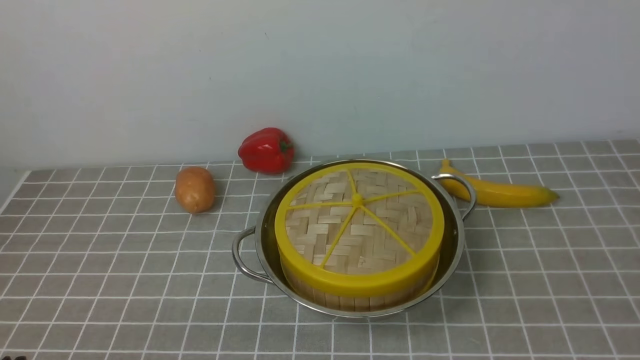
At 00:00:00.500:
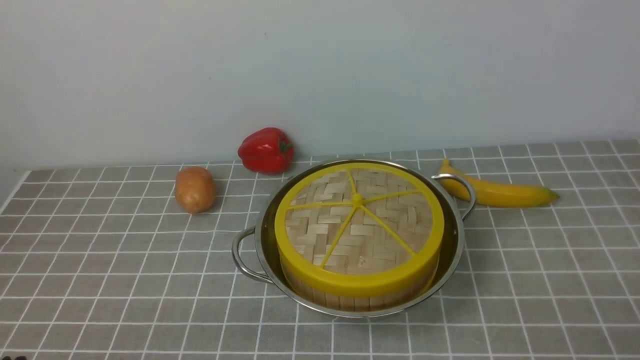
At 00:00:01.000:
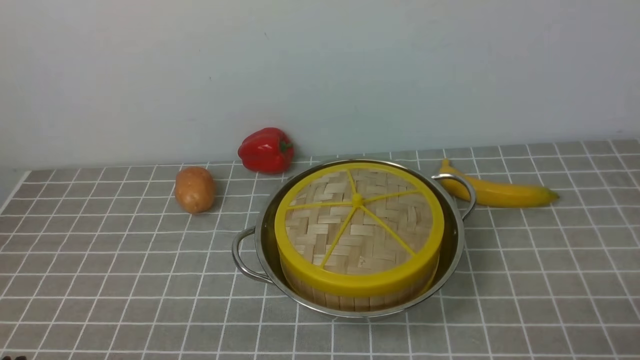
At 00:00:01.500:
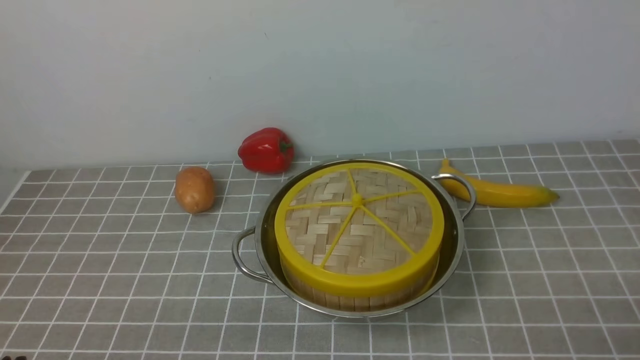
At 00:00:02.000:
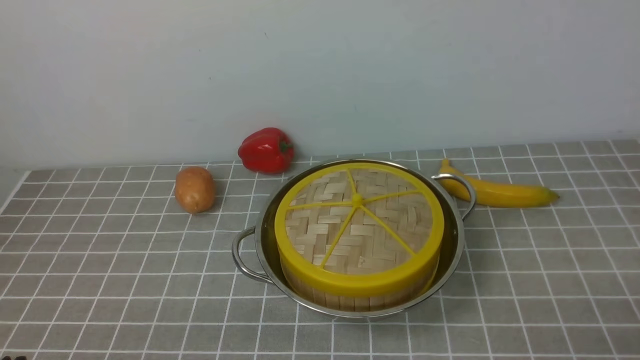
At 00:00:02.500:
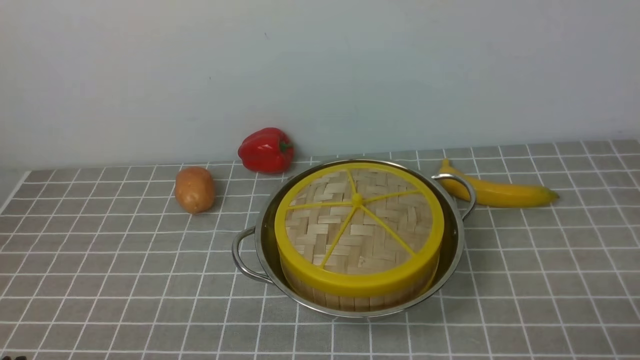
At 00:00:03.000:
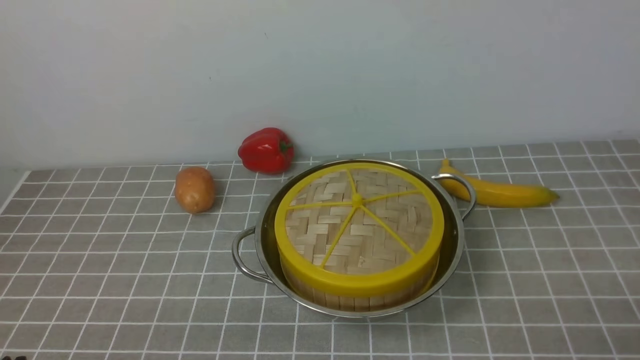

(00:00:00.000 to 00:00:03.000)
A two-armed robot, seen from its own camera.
Task of the whole recording: place the steamer in the pot on the grey tablecloth, and put the lid on the steamer.
00:00:01.500 - 00:00:03.000: The two grippers keep their place.

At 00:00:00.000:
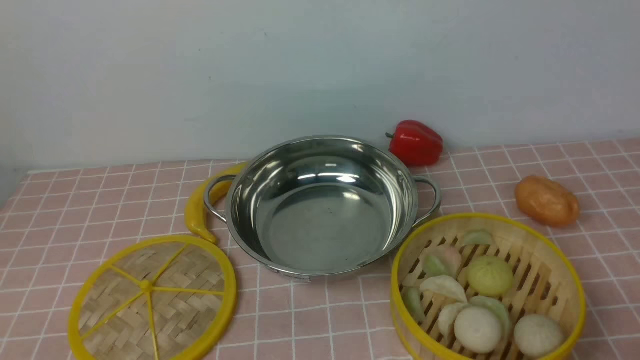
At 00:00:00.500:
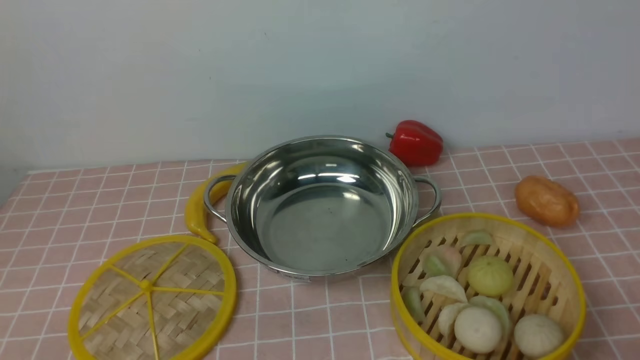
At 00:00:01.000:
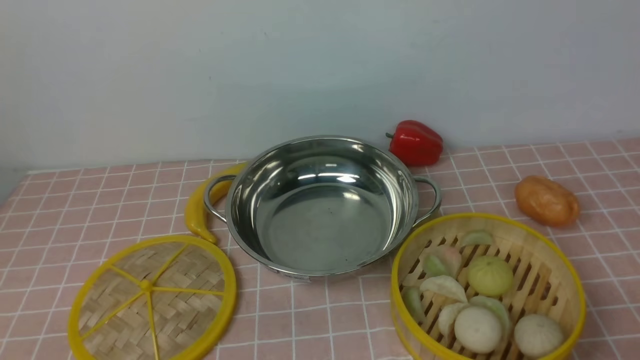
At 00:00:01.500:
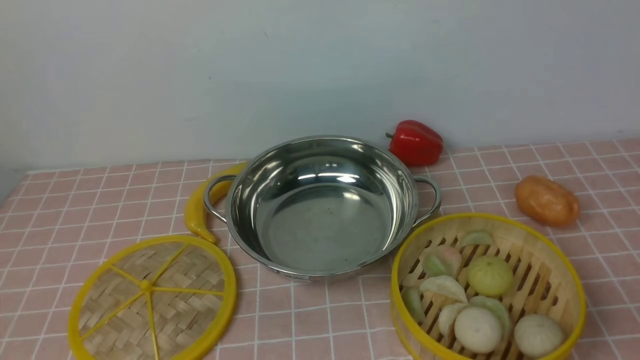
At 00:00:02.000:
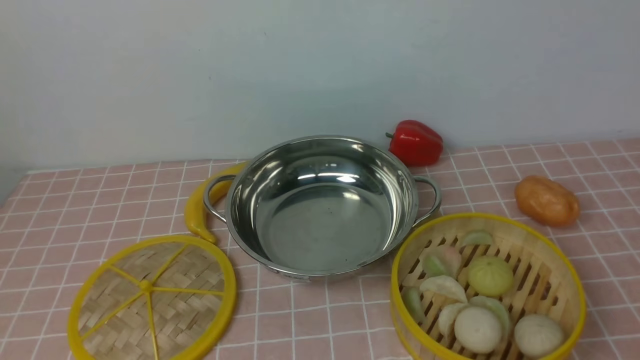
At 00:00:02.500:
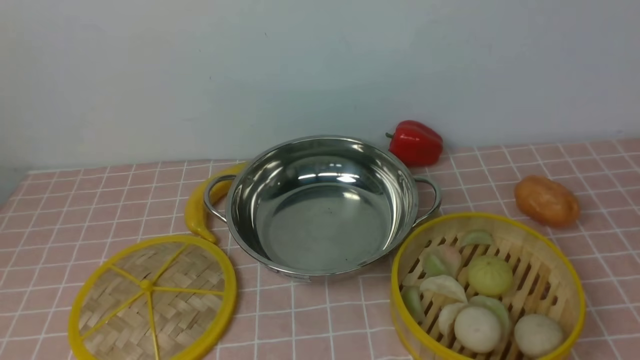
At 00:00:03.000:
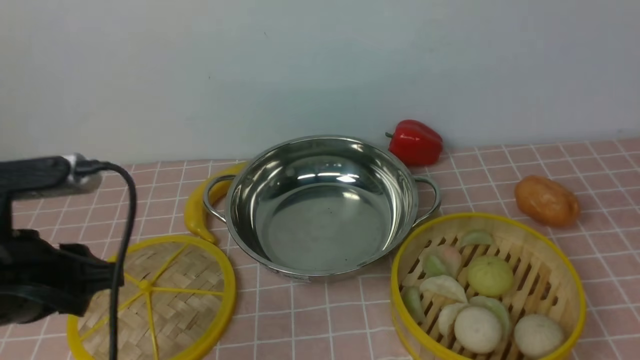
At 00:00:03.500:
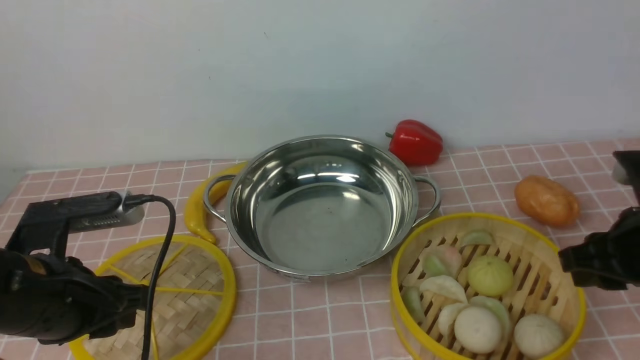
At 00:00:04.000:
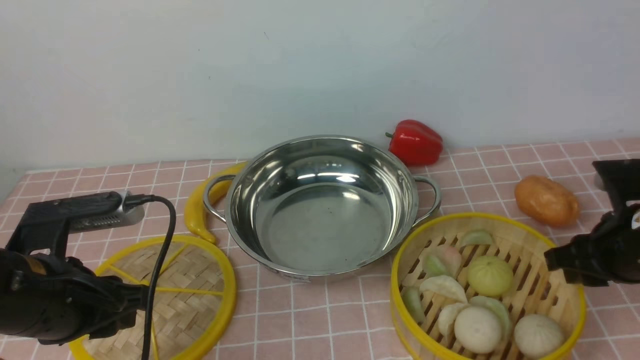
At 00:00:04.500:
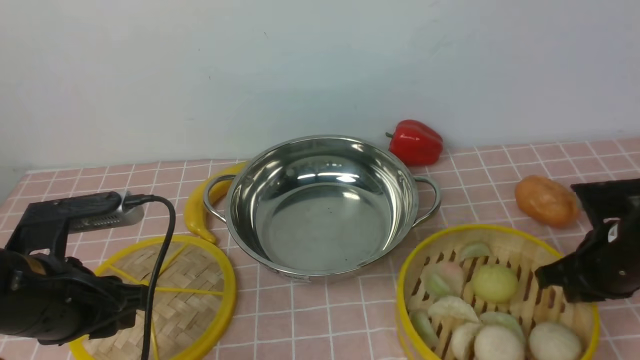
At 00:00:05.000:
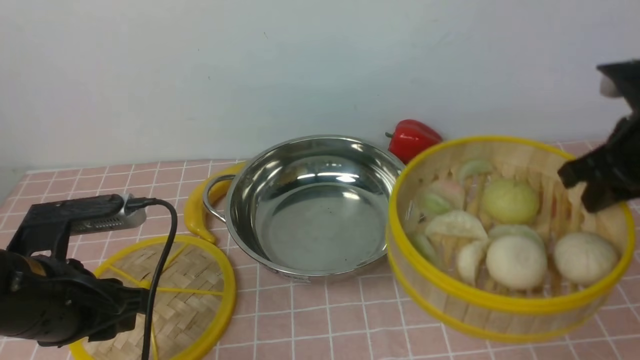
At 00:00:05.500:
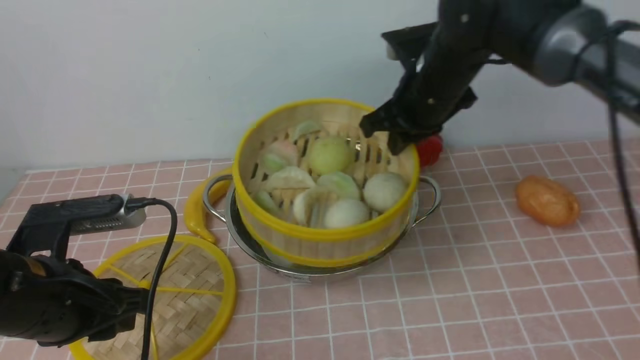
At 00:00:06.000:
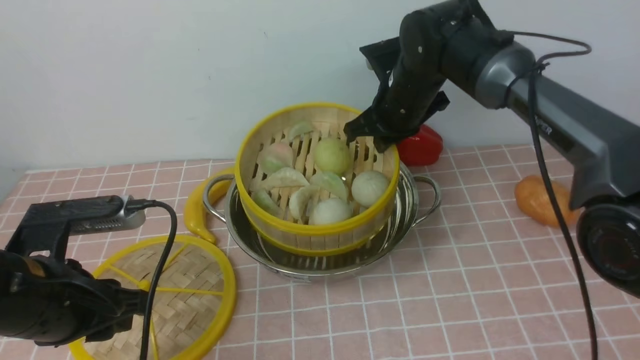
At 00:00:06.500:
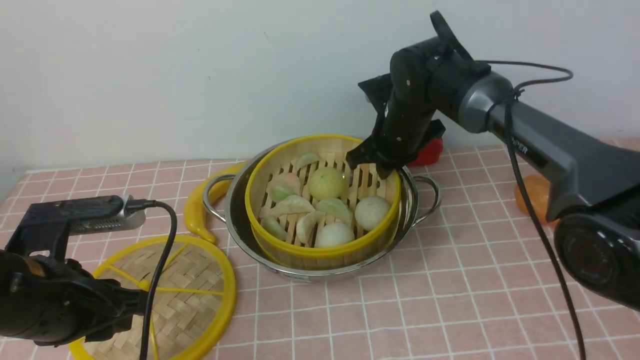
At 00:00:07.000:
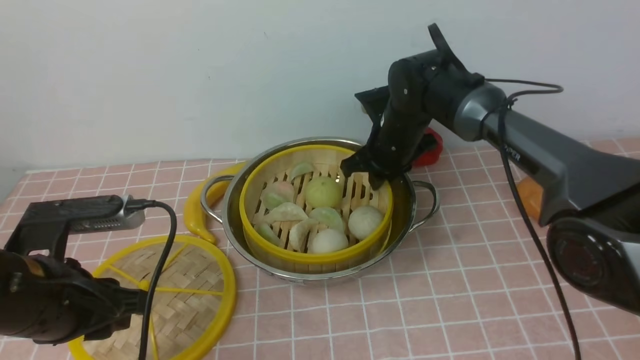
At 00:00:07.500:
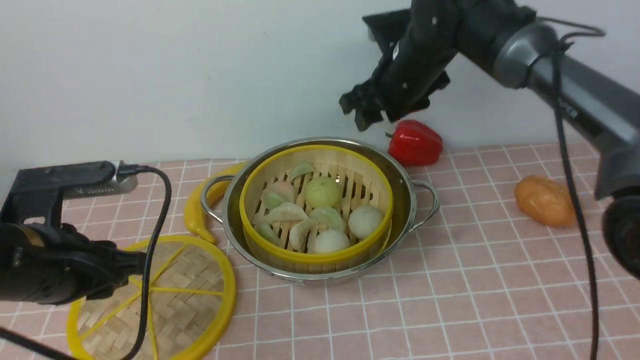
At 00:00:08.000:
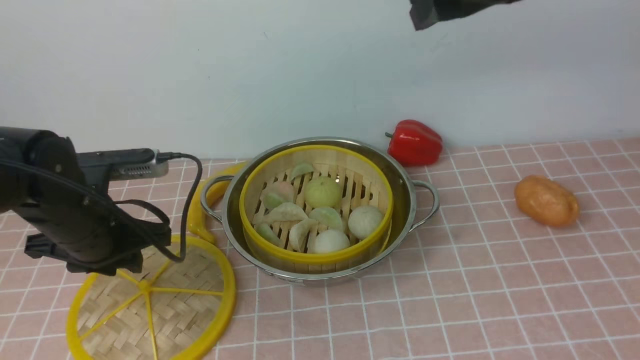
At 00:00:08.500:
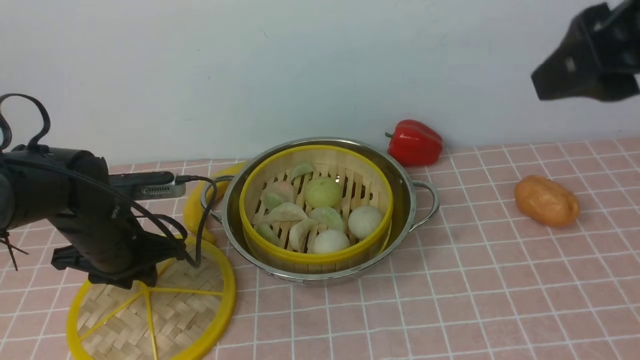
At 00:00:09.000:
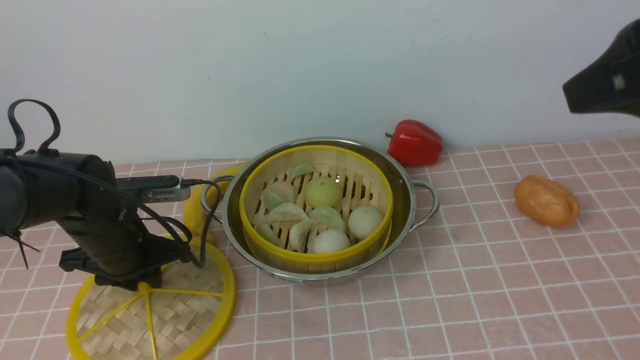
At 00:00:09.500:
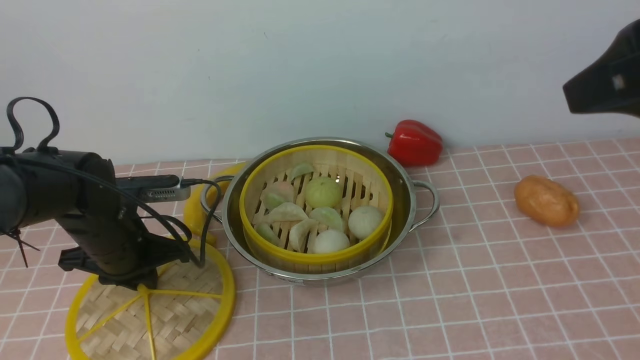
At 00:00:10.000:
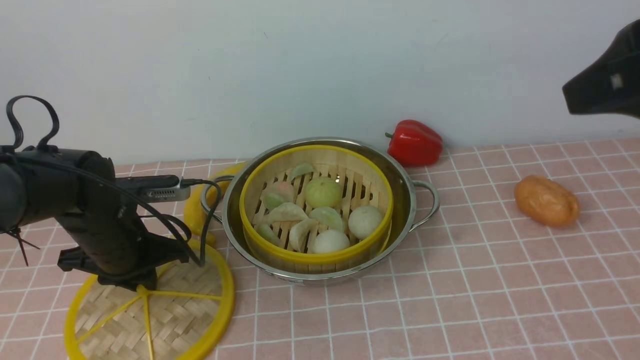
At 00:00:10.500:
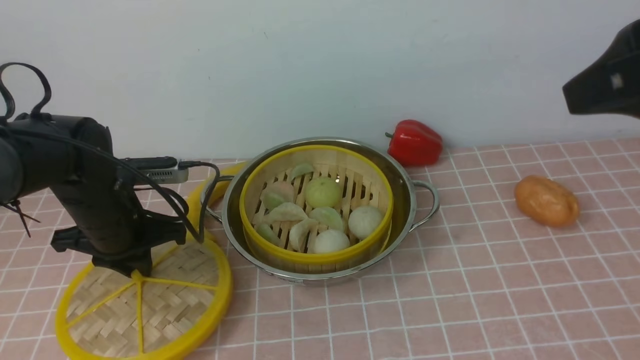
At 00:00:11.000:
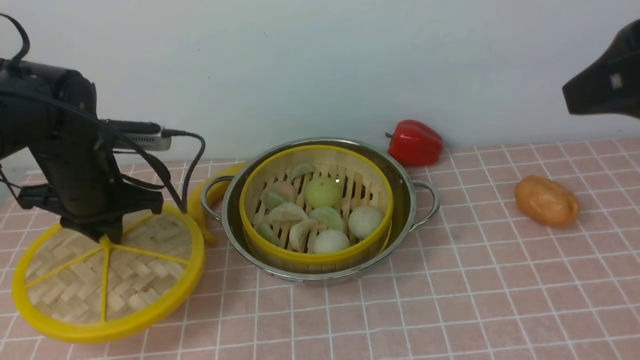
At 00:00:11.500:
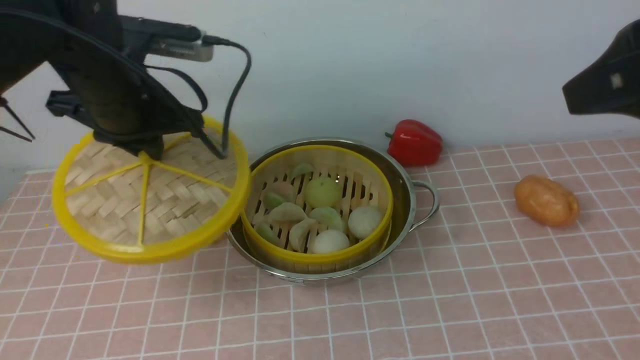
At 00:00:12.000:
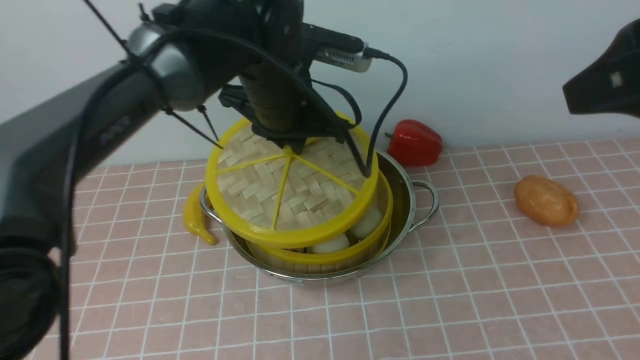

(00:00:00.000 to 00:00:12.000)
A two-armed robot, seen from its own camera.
Task of the whole recording: place the steamer in the pot on the pink tablecloth, and put the lid on the steamer.
Step, 00:00:00.000 - 00:00:04.500: use the right arm to lift the steamer closest to it.
Step, 00:00:05.000 - 00:00:07.000: use the right arm to put the steamer into the iron steamer pot in the middle.
Step, 00:00:07.500 - 00:00:10.500: use the left arm to lift the lid of the steamer.
00:00:02.000 - 00:00:04.000: The two grippers go about 20 cm forward.
00:00:04.000 - 00:00:06.000: The right gripper travels forward and to the left by some 30 cm, and closes.
00:00:06.000 - 00:00:08.000: The right gripper goes roughly 20 cm upward and backward, and opens. Meanwhile the left gripper shifts about 10 cm forward.
00:00:08.000 - 00:00:10.000: The left gripper is displaced downward by about 5 cm, while the right gripper heads backward and to the right, covering some 20 cm.
00:00:10.000 - 00:00:12.000: The left gripper is displaced to the right and upward by some 20 cm.

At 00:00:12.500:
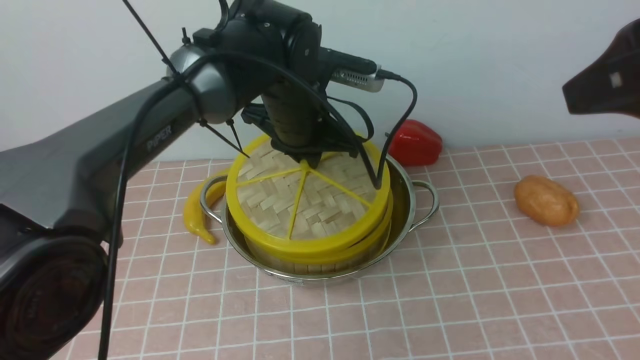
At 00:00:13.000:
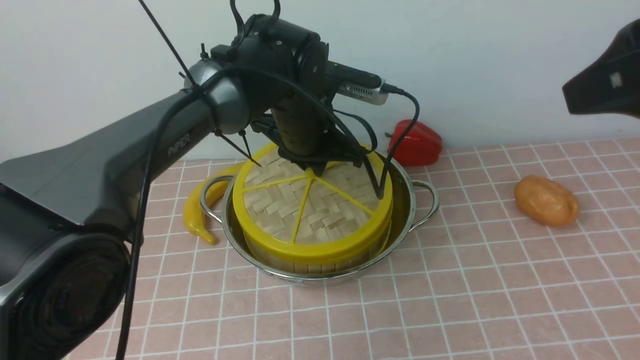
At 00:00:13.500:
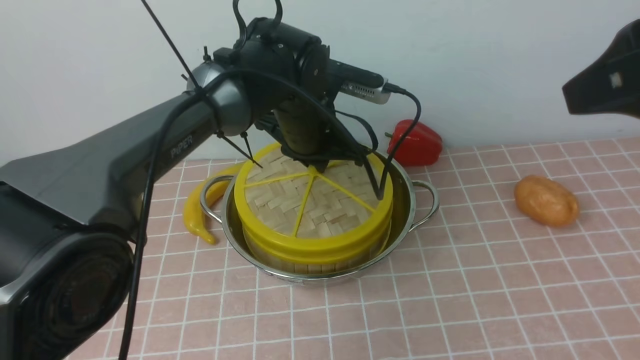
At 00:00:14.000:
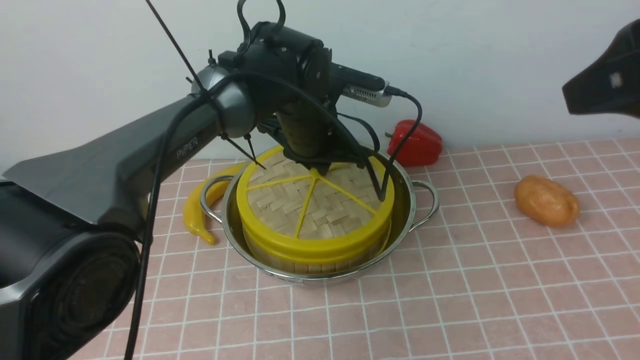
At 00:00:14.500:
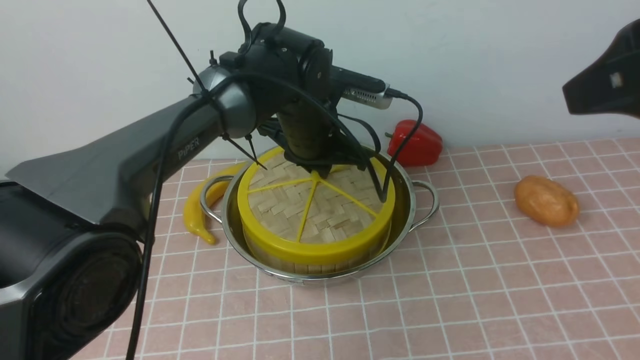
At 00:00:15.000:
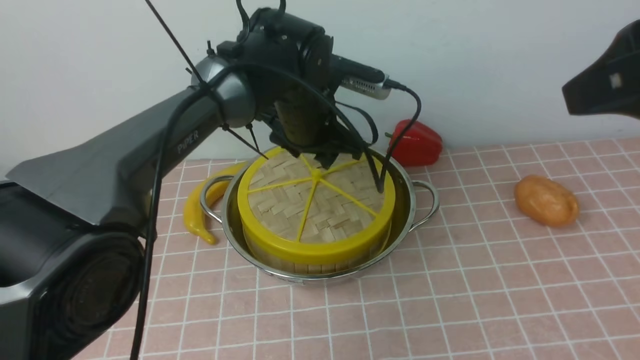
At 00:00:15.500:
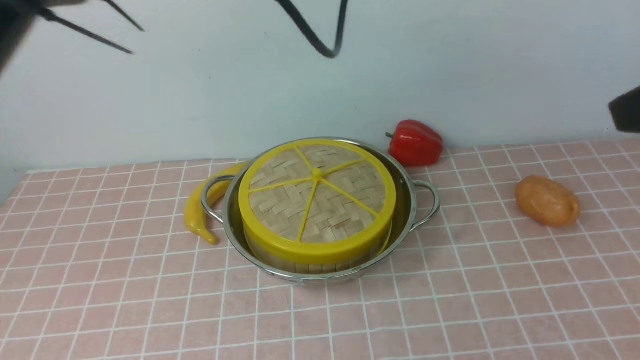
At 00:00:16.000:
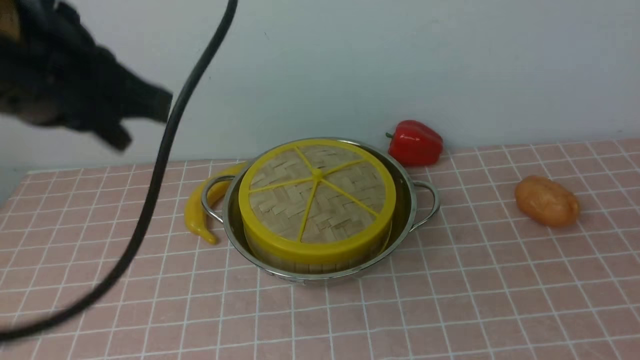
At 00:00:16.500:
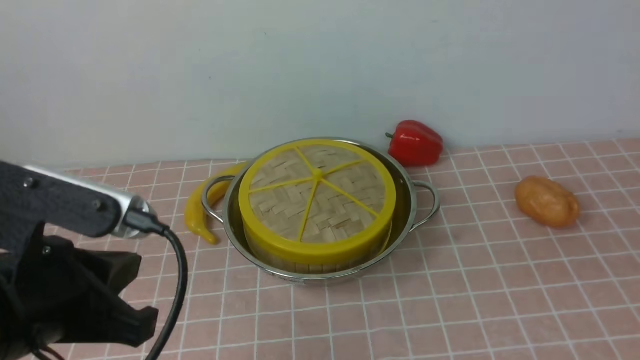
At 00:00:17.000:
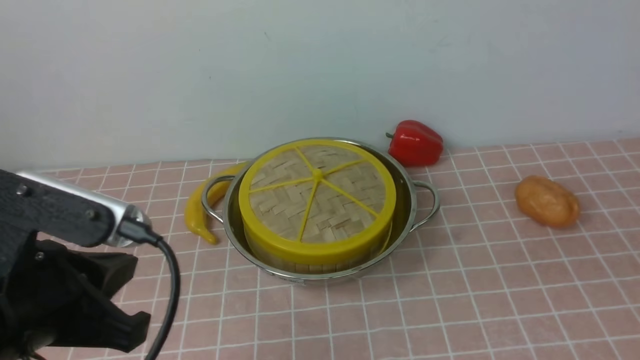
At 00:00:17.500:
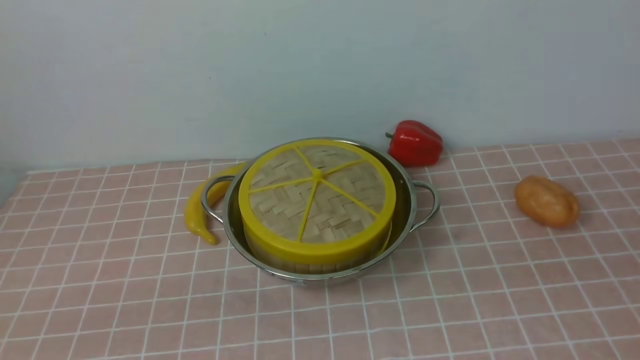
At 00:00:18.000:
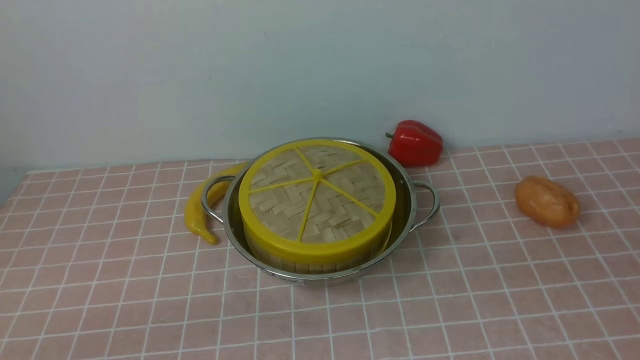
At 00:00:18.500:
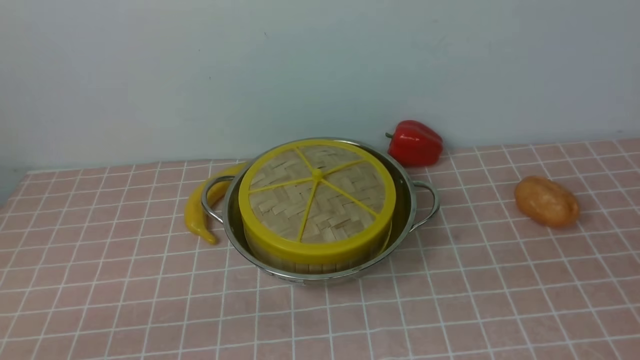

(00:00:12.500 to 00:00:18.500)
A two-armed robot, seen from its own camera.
Task of the whole recording: place the steamer in the pot on the pink tablecloth, and put the lid on the steamer.
Step, 00:00:12.500 - 00:00:15.000: use the left arm to place the steamer lid on the steamer.
00:00:12.500 - 00:00:14.500: The grippers stay close to where they were, moving slightly.
00:00:14.500 - 00:00:16.500: The right gripper is displaced downward, backward and to the right by about 20 cm, and closes. The left gripper shifts approximately 30 cm backward and to the left, and opens, then closes once more.
00:00:16.500 - 00:00:18.500: The left gripper moves downward, backward and to the left, about 20 cm.
